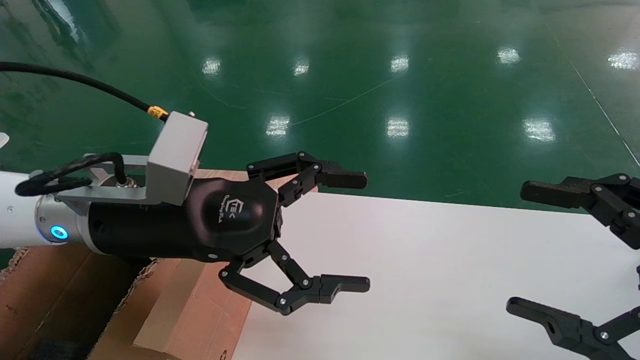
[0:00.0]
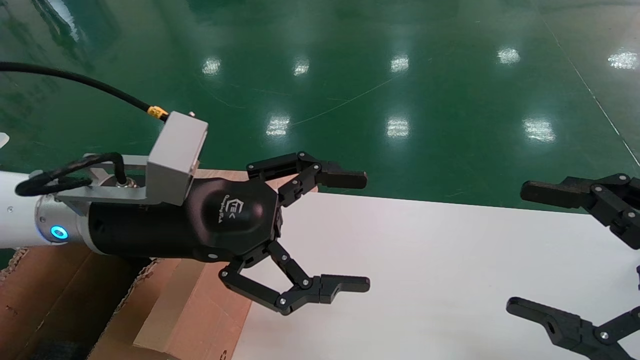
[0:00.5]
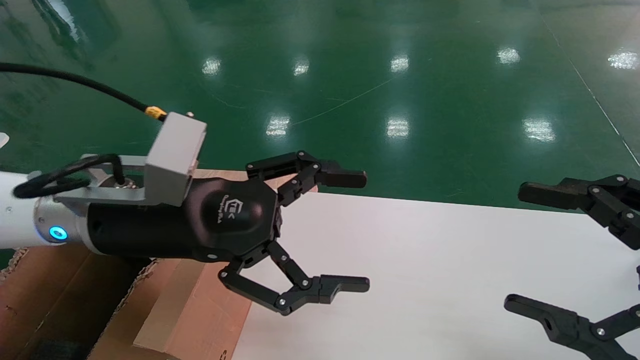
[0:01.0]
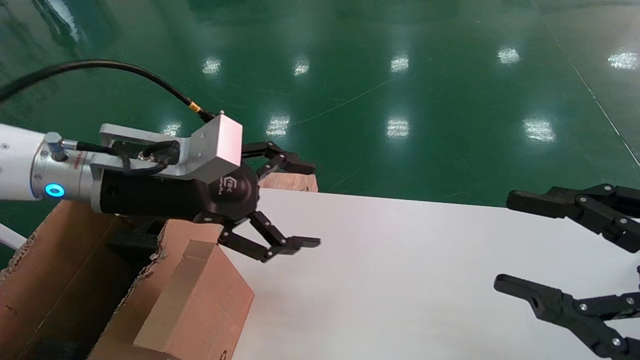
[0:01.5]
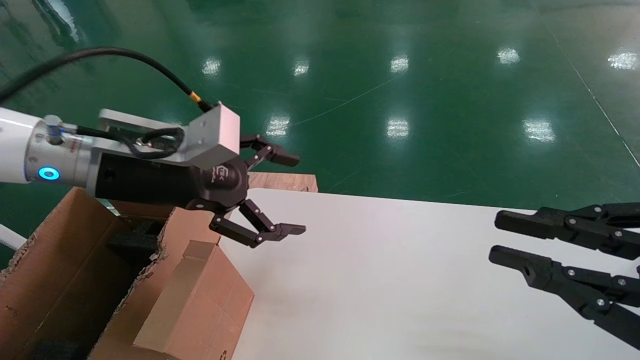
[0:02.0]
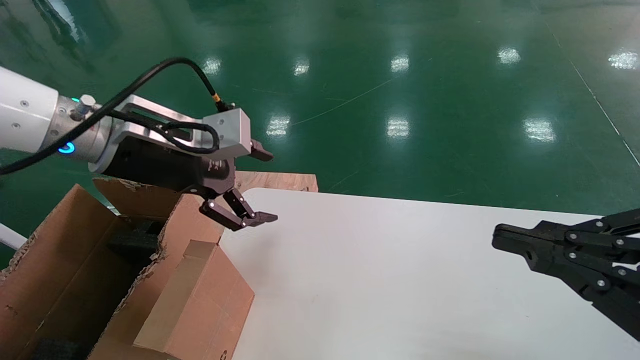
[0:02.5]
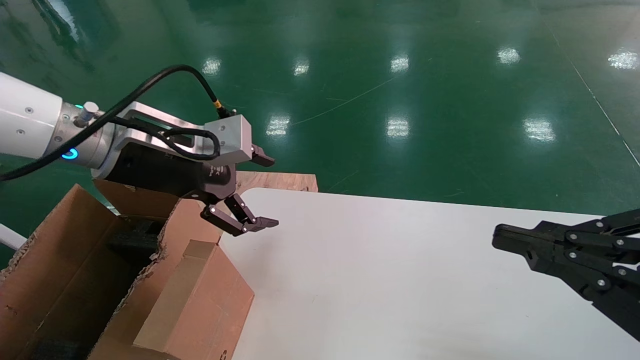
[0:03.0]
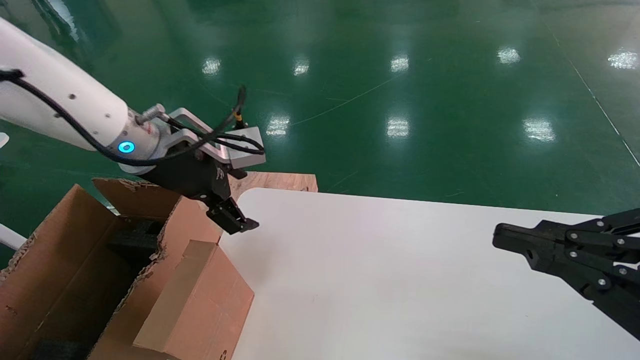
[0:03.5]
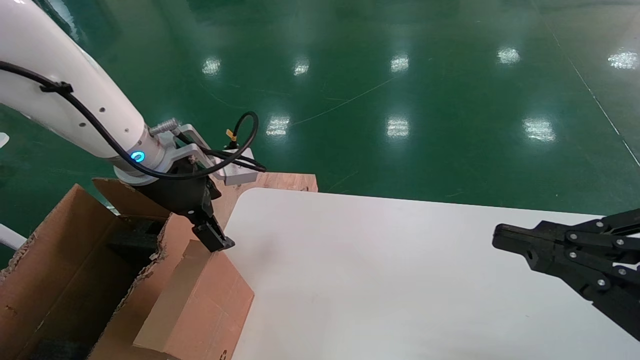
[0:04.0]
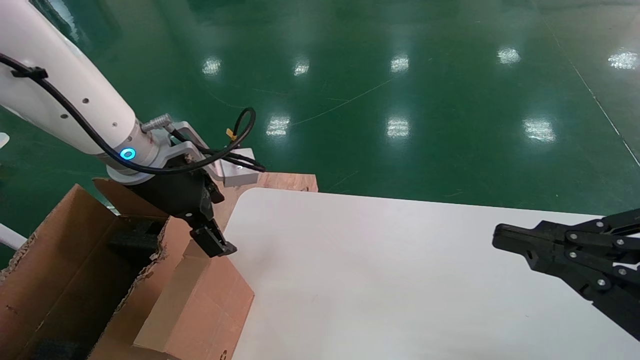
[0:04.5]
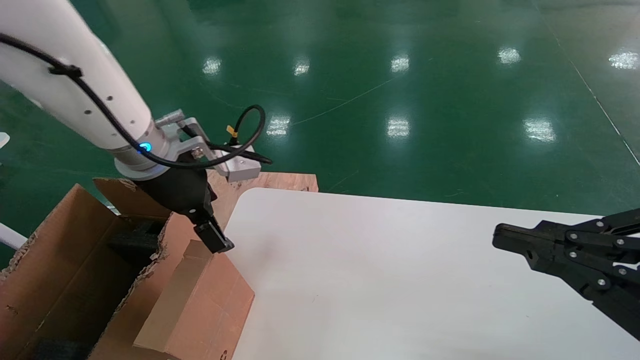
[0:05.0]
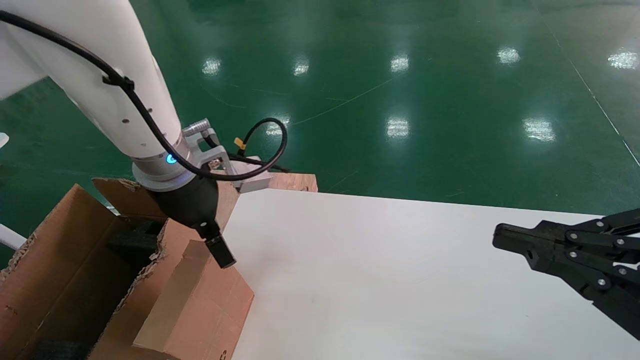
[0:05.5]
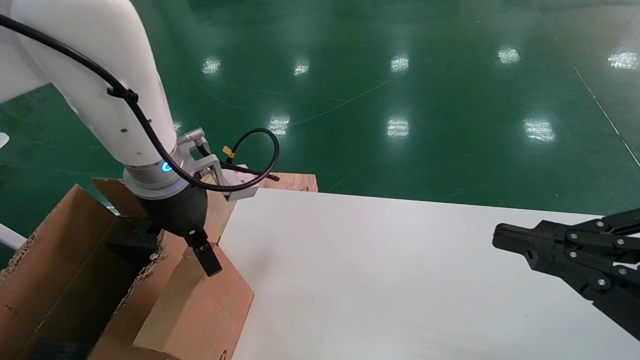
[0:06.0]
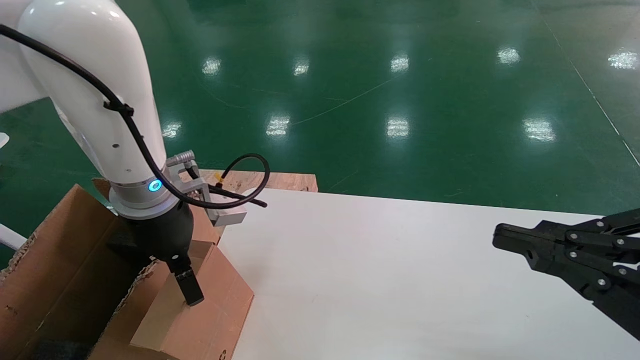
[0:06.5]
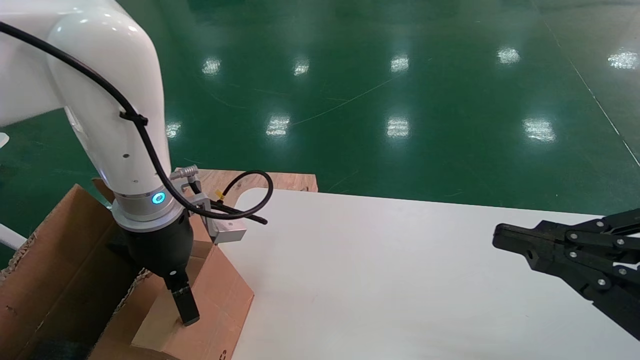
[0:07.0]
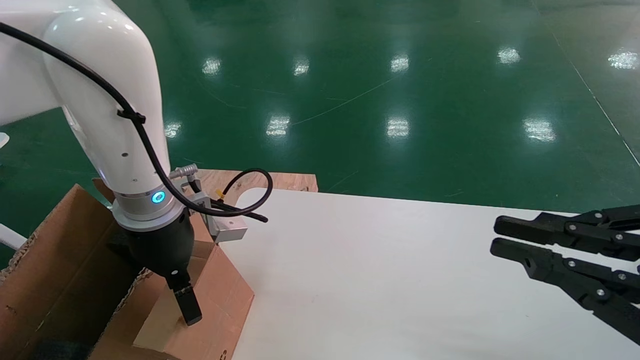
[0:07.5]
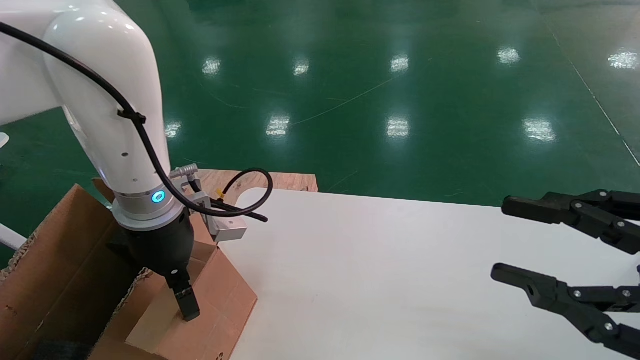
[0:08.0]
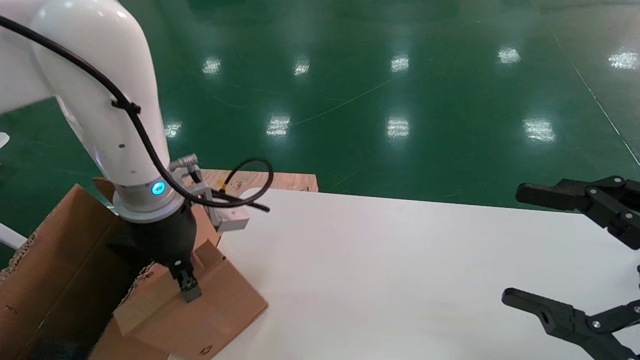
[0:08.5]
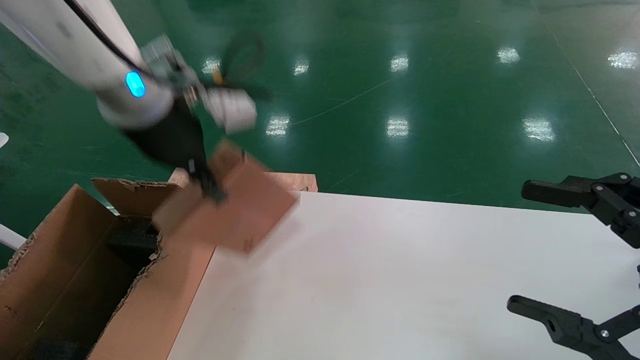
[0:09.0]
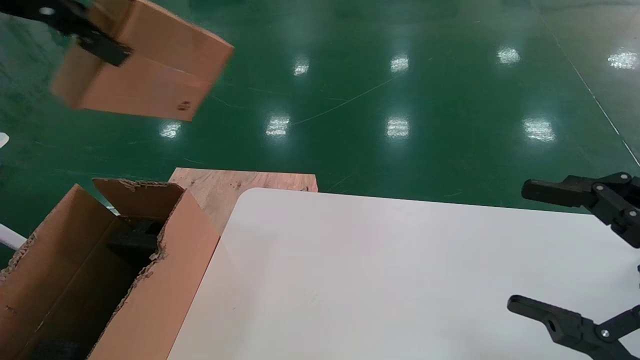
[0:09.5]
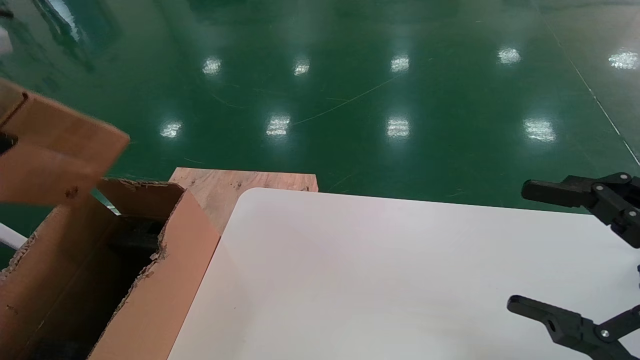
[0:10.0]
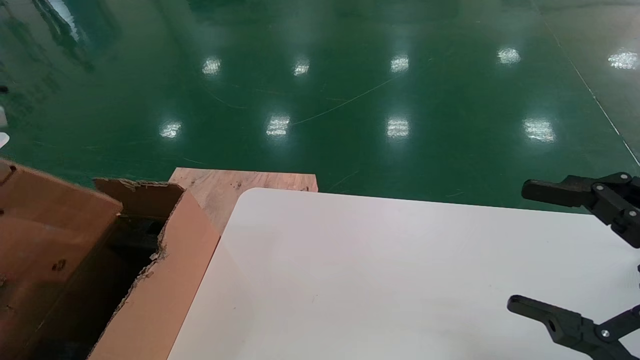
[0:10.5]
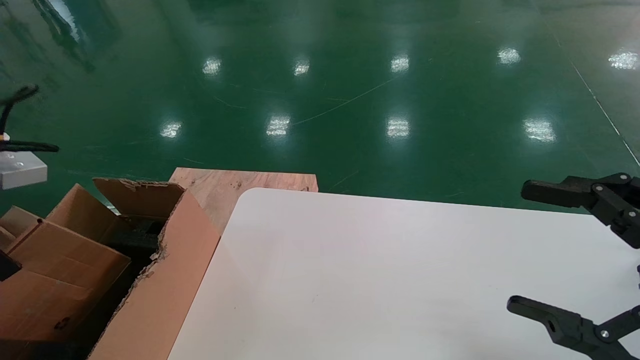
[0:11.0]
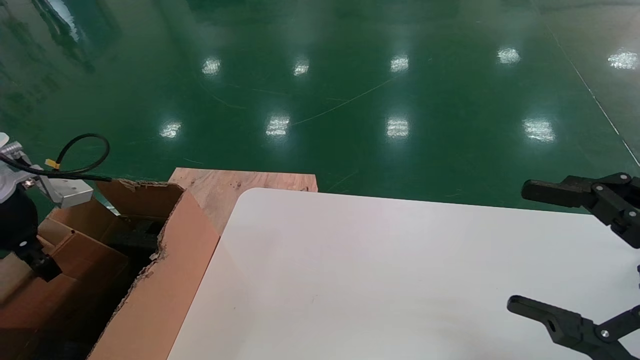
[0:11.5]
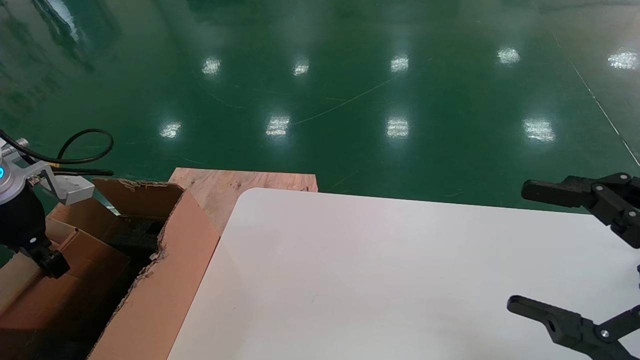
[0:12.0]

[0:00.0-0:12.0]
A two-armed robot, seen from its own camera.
Task of the whole recording: place the small box on the table into the large box on the left.
Step, 0:01.5 to 0:08.5: Pick up the mouse and the power cord paper box.
0:00.0 to 0:02.0: The right gripper closes its fingers. Meanwhile the left gripper changes place by roughly 5 cm.
0:02.0 to 0:04.0: The left gripper travels forward by approximately 5 cm.
0:06.0 to 0:08.0: The right gripper opens.
0:08.0 to 0:10.0: The left gripper travels to the left, upward and backward by approximately 30 cm, and closes its fingers. Meanwhile the right gripper opens up.
0:10.0 to 0:12.0: The left gripper travels downward and forward by some 20 cm.

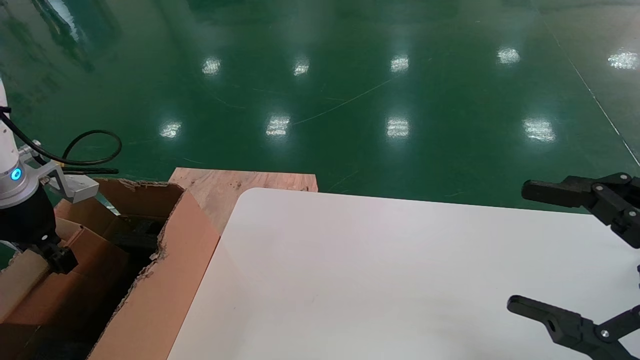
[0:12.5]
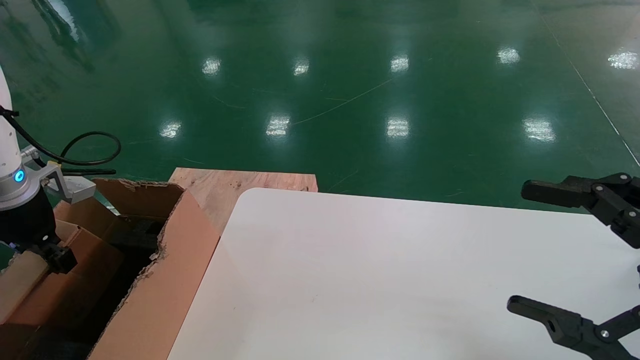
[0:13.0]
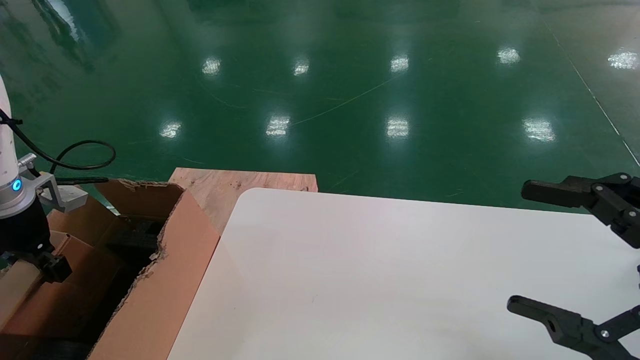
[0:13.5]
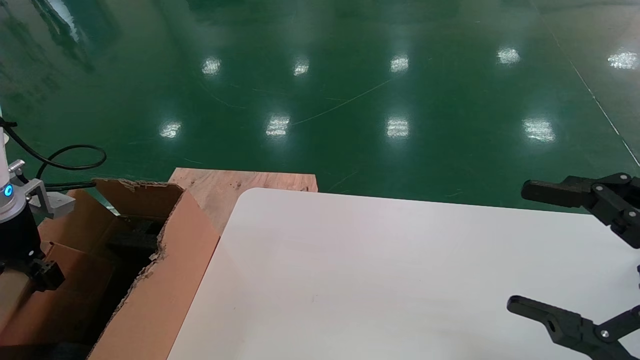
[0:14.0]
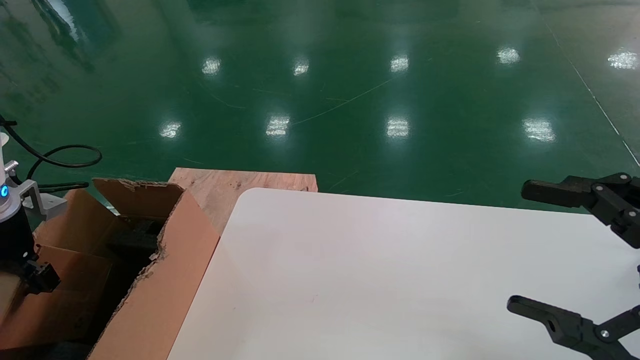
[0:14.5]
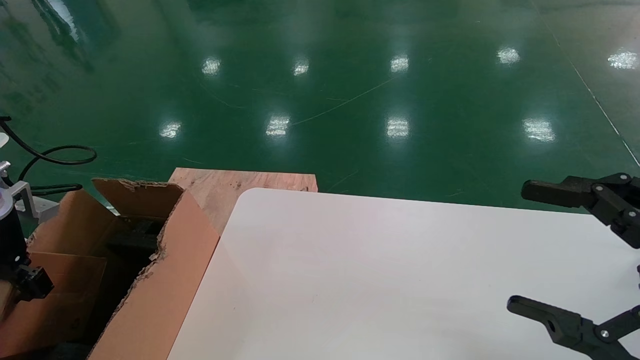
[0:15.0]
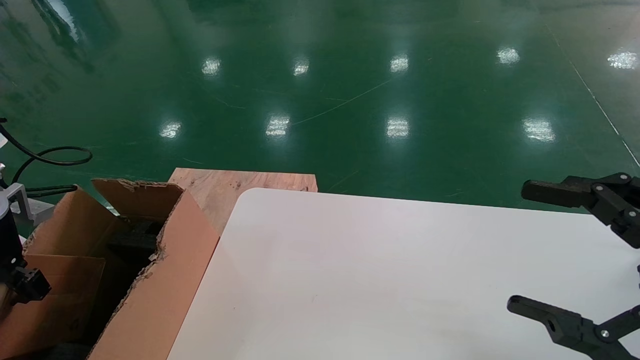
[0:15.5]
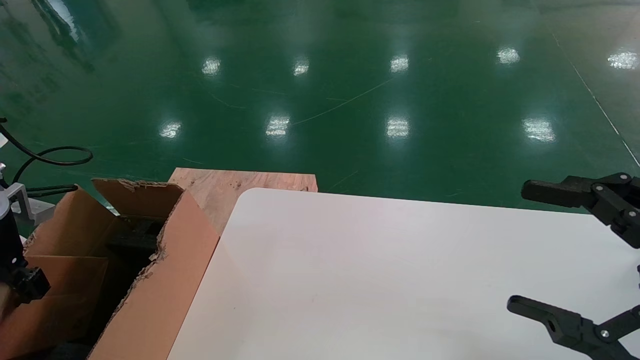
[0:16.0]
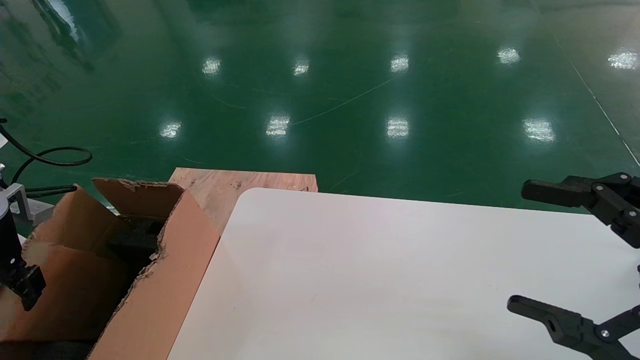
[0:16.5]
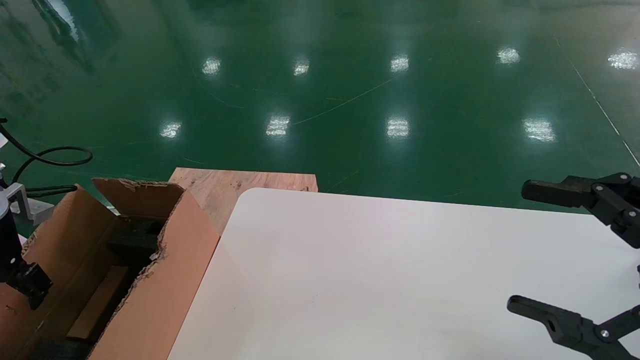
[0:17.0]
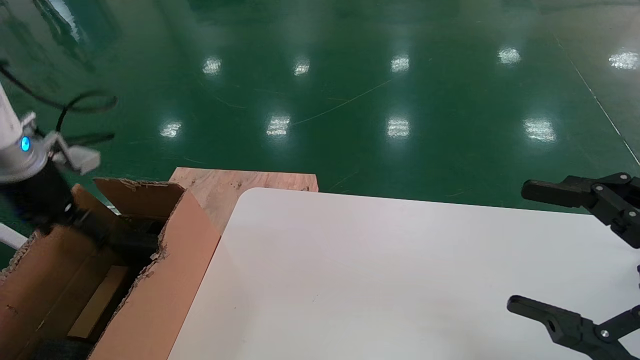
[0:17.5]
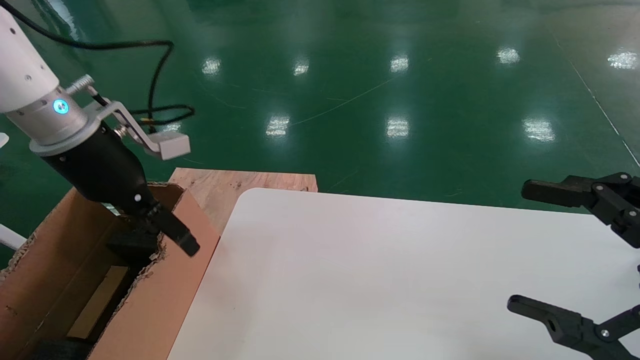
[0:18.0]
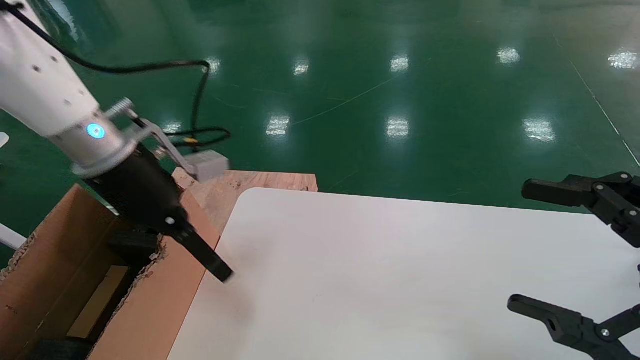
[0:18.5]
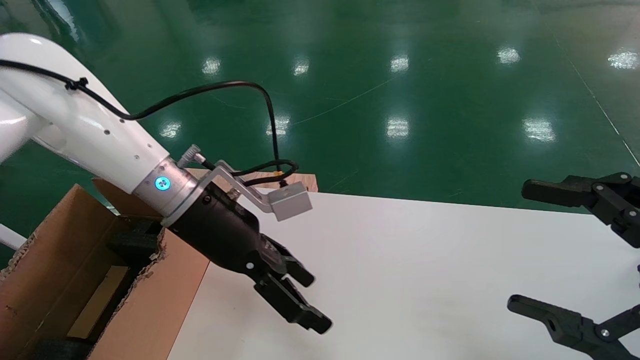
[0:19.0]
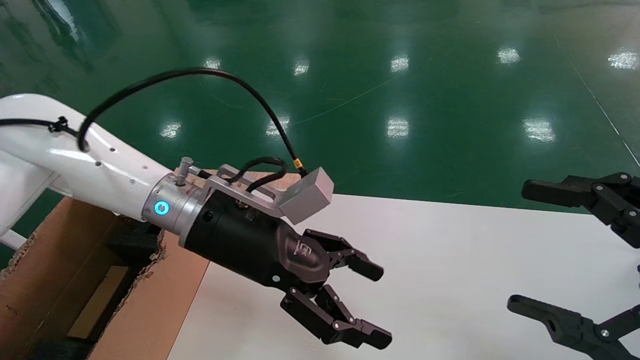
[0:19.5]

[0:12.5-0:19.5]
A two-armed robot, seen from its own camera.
Task of the whole recording: place the small box on the table into the large box on the left.
Step, 0:12.5 to 0:16.5: Place the mouse and the power cord paper box into the container.
0:12.5 to 0:14.5: The left gripper heads to the left, covering about 5 cm.
0:14.5 to 0:16.0: Neither gripper changes place.
0:16.0 to 0:17.5: The left gripper travels upward and to the right by about 10 cm, and opens its fingers.
0:17.5 to 0:19.5: The left gripper moves to the right, some 30 cm.
